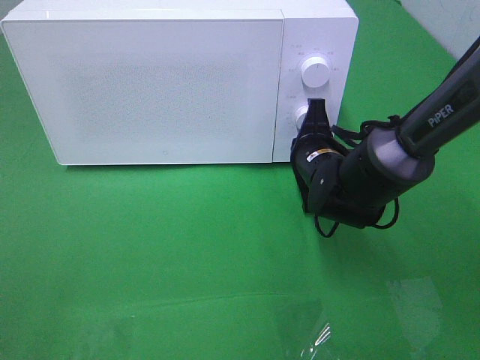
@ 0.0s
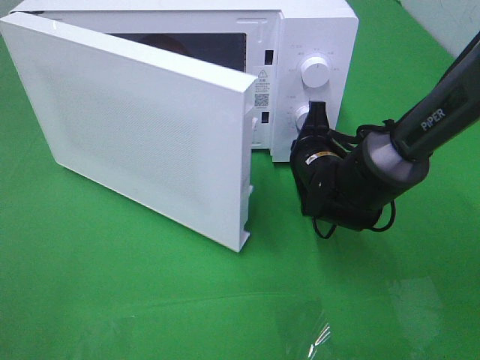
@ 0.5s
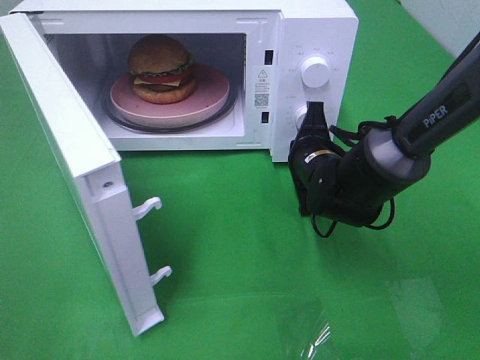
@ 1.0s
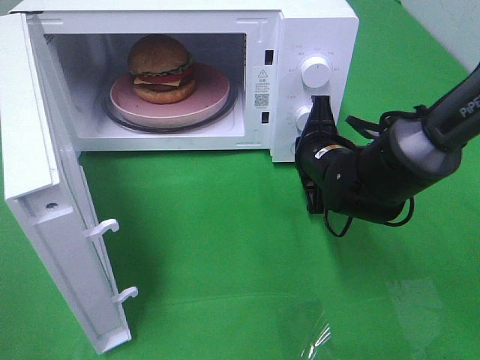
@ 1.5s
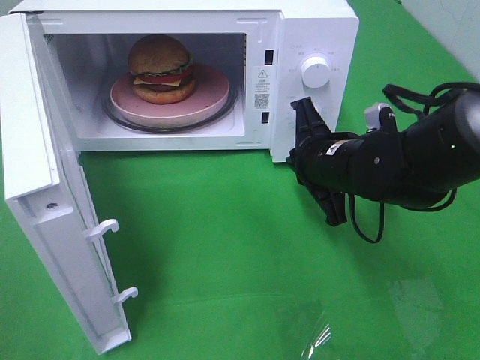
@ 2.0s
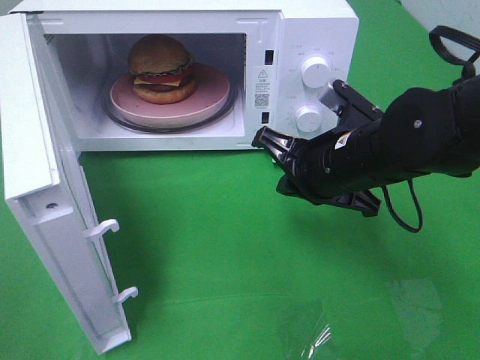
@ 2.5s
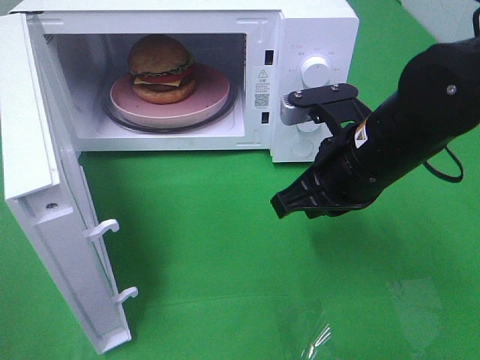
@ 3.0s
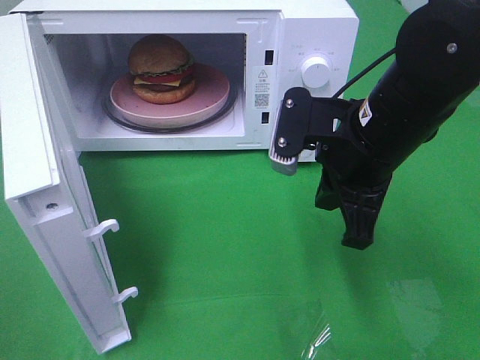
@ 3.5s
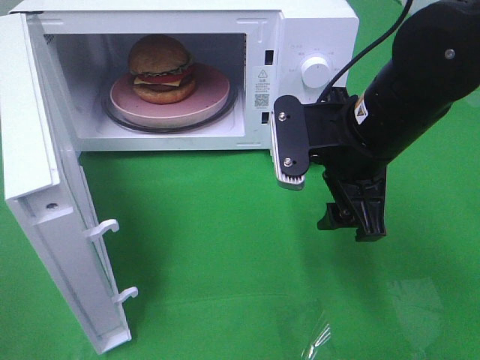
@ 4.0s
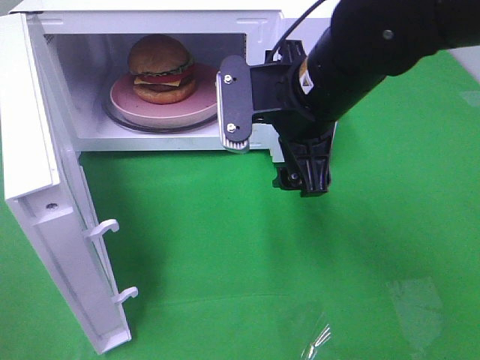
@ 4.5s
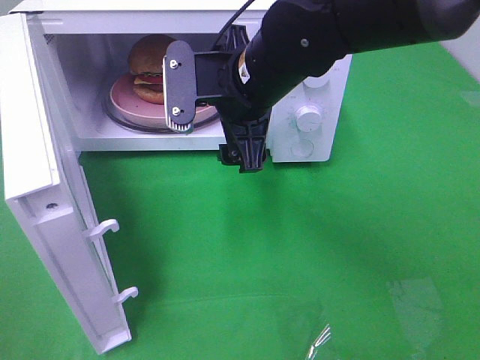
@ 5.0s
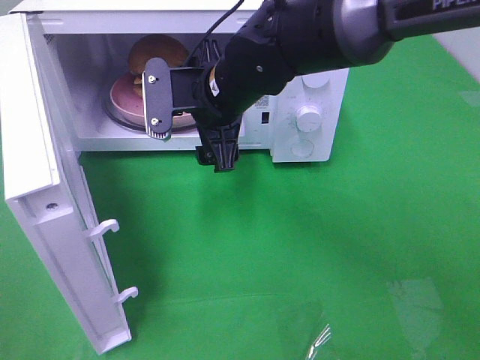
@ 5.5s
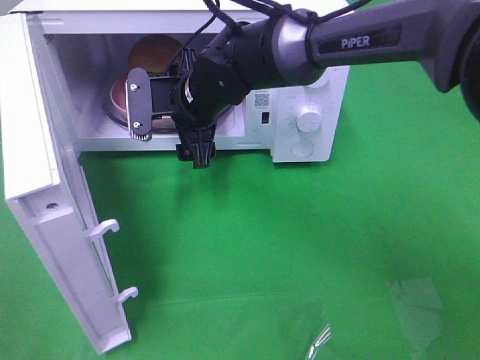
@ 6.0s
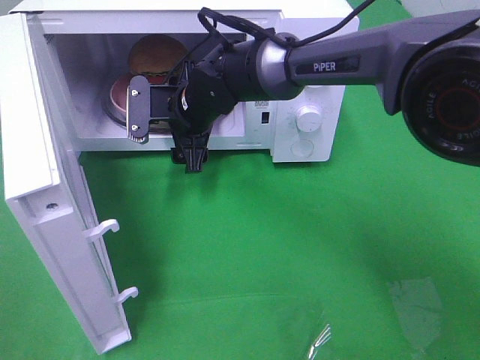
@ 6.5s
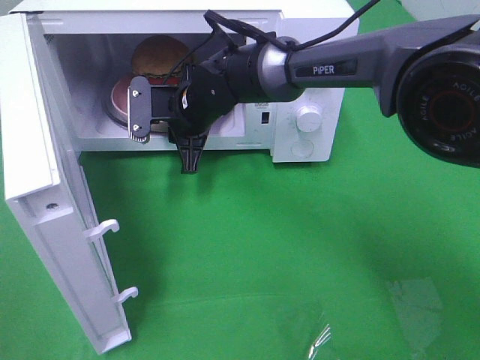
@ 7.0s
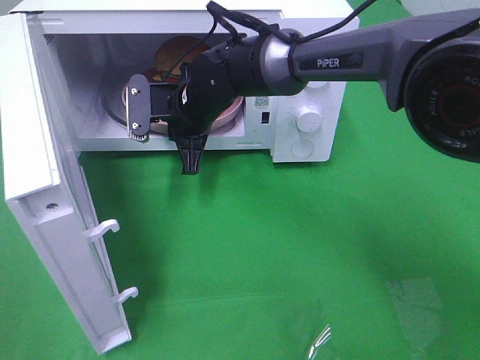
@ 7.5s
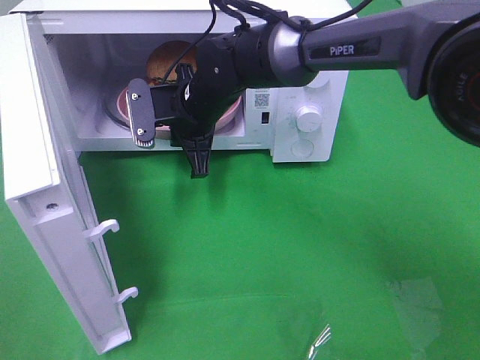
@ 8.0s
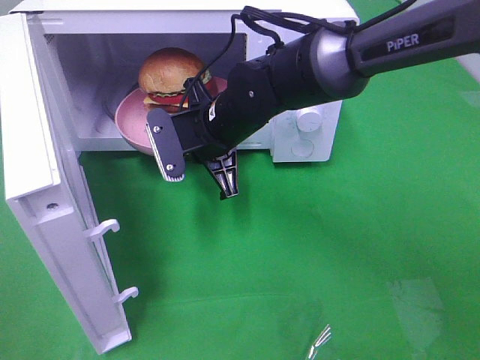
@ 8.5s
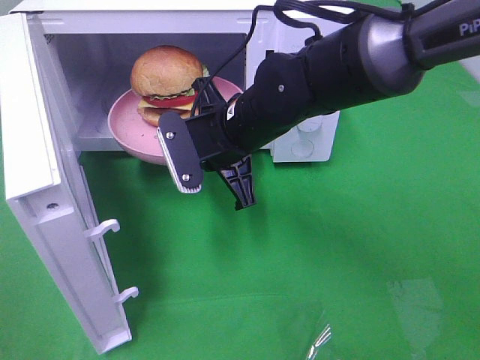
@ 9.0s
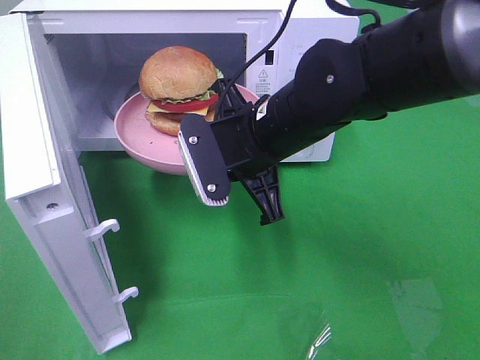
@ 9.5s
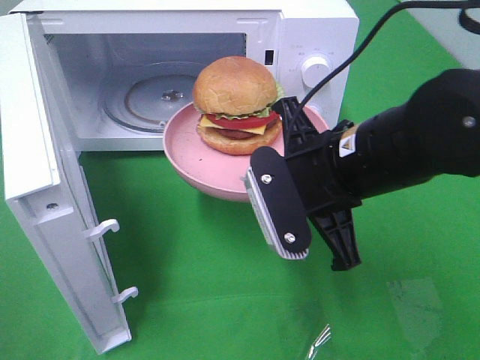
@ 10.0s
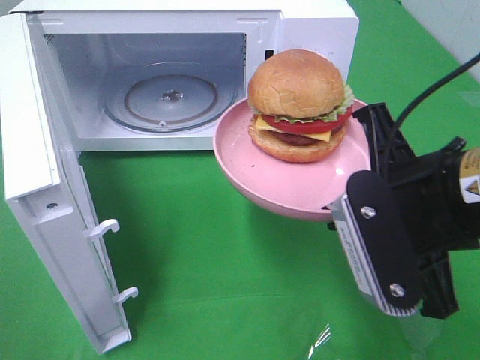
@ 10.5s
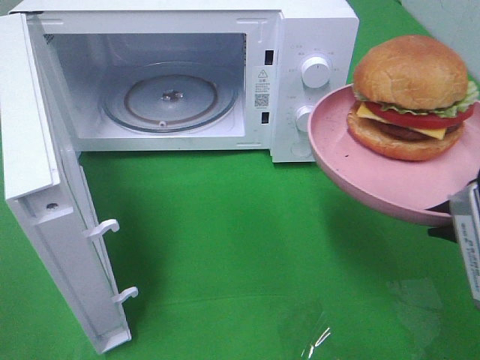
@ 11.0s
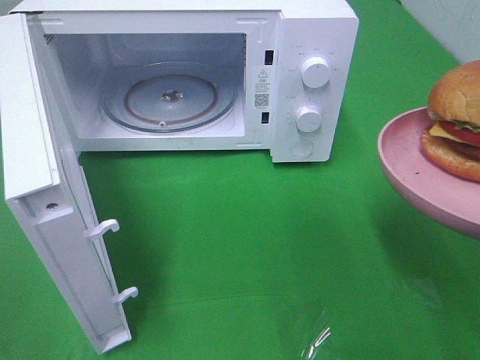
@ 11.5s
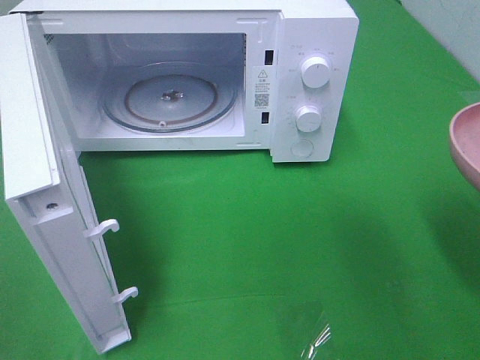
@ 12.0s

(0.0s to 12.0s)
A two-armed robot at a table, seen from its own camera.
Task of the whole recording: Heat the burger.
Step, 2.0s - 7.0s: Right hand: grab the plate with the hamburger.
0.0s - 2.0s: The right gripper moves about 5 cm.
2.0s - 4.0s: The right gripper goes some 10 cm upward, and opens up.
4.0s - 6.0s: The right gripper is displaced to the left and forward by roughly 20 cm.
6.0s - 8.0s: The right gripper closes.
8.0s - 10.0s: The right gripper is displaced backward and to the right by about 20 cm.
10.0s - 12.0s: The right gripper shifts roughly 20 cm to the right and backward.

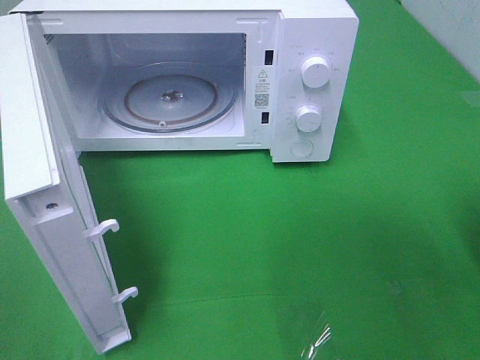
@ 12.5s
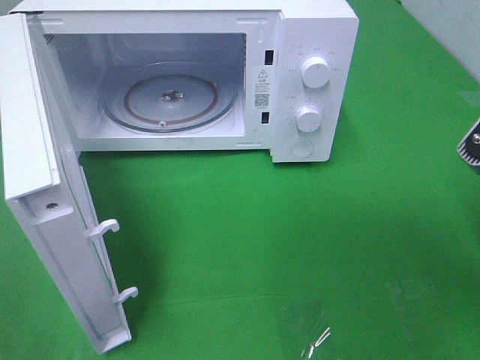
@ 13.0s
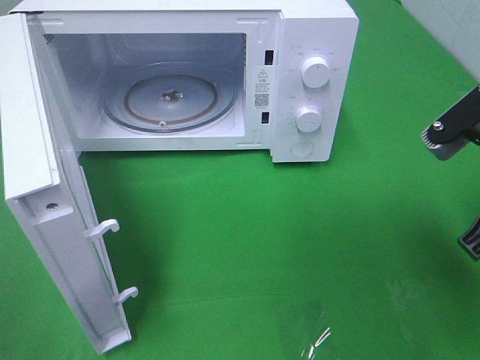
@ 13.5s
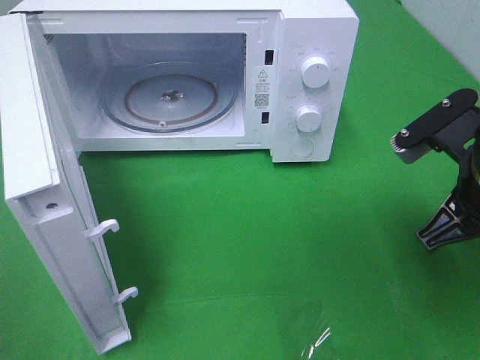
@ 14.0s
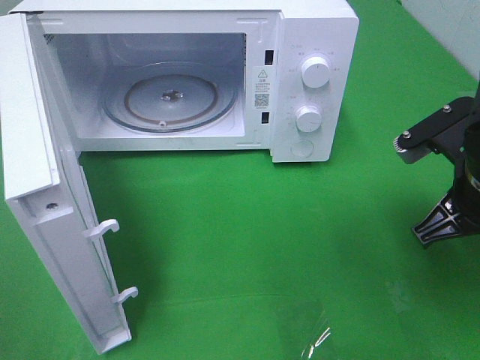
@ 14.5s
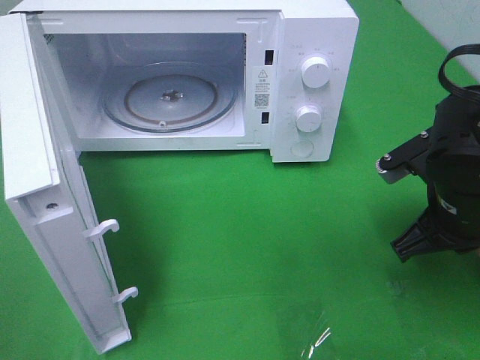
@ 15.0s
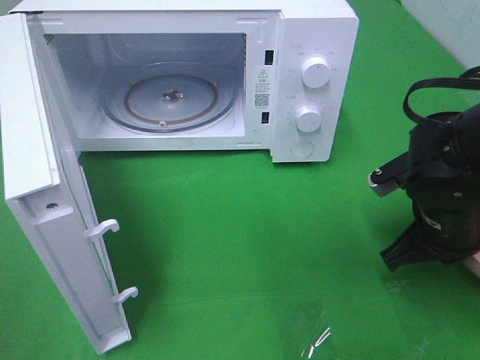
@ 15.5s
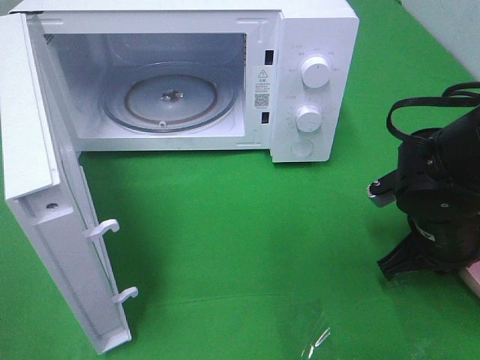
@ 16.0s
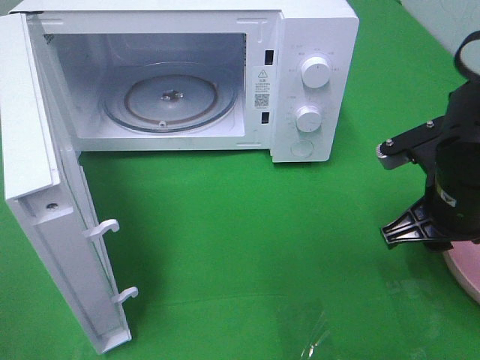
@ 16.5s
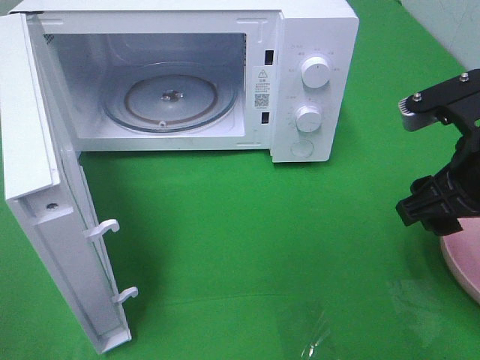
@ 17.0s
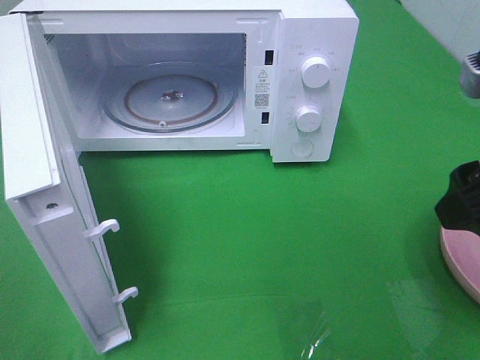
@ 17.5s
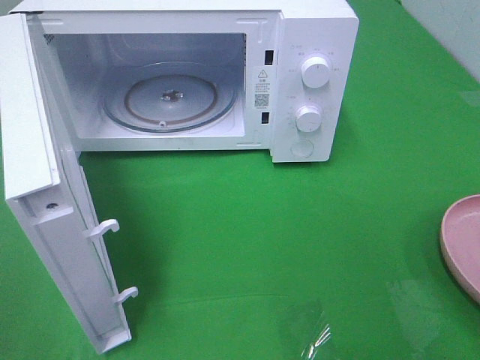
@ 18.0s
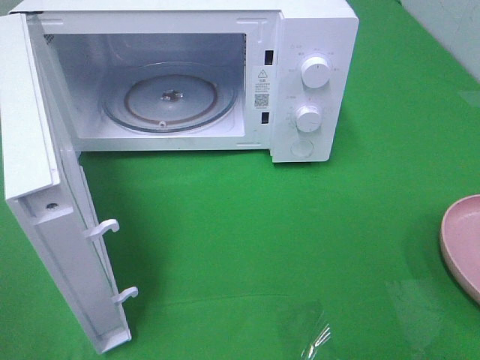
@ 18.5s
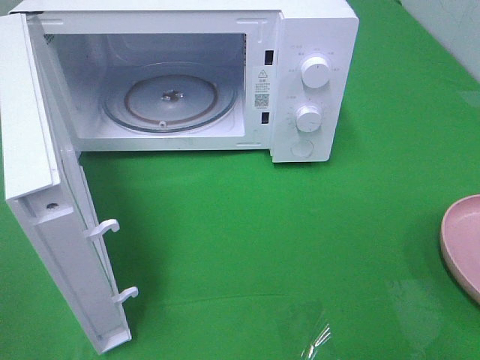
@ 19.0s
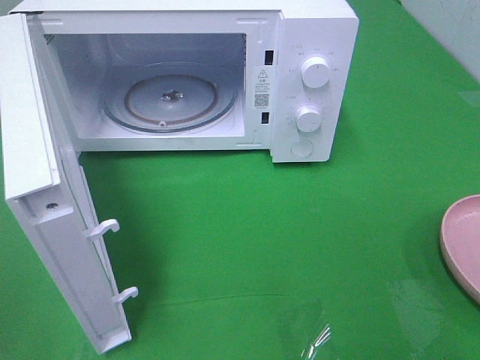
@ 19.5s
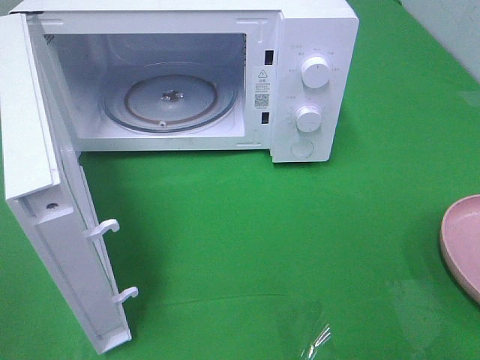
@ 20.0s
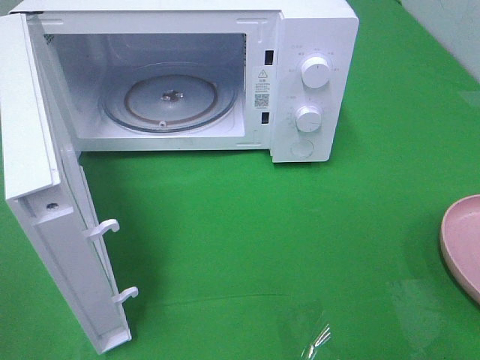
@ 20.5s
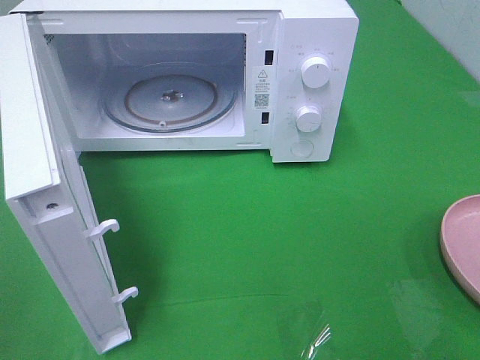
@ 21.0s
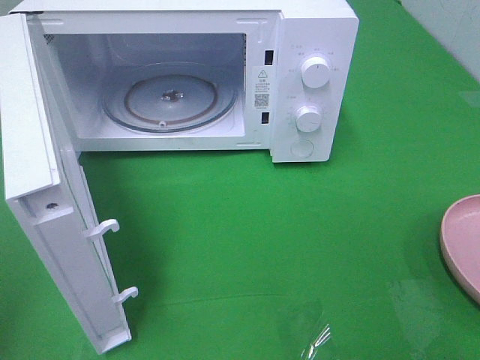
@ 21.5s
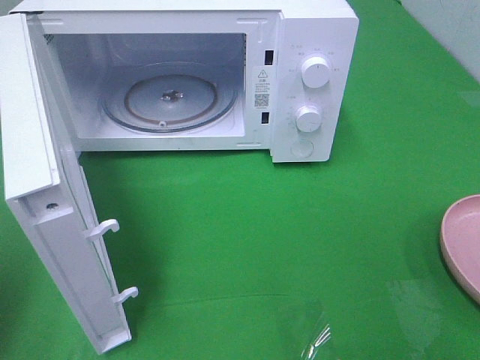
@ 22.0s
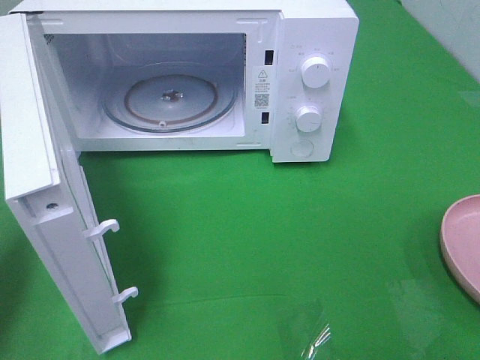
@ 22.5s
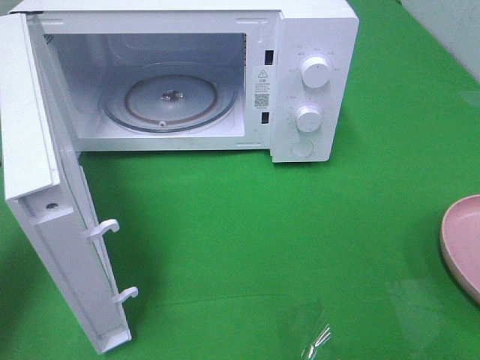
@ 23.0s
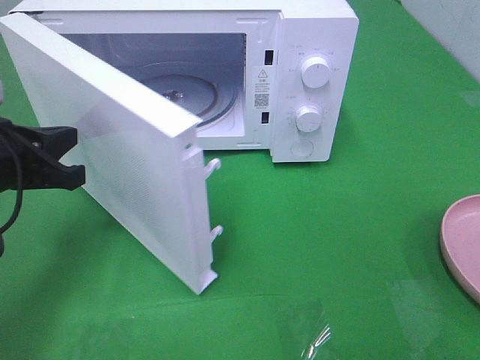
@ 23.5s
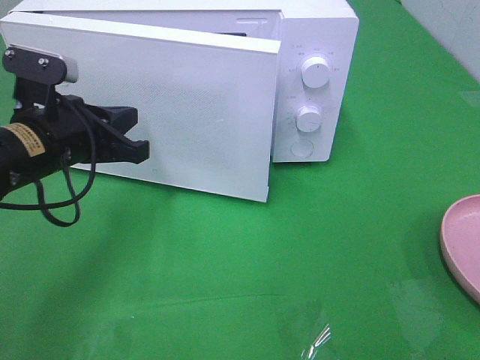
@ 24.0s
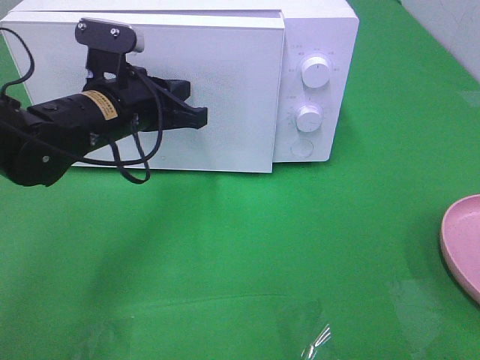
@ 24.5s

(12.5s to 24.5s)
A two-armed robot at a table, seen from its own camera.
Task of the whole recording: Heat the burger.
Step, 12.5s - 16.5s: Right hand: place the plate on the table.
12.5s - 14.5s: The right gripper goes roughly 10 cm forward and downward.
14.5s - 16.5s: The right gripper travels downward and back again, about 10 cm each way, and opens its fingers.
16.5s - 18.5s: The right gripper shifts approximately 25 cm backward, upward and to the right.
20.5s - 22.5s: The left gripper travels forward by roughly 20 cm, and closes.
22.5s - 24.5s: The left gripper is displaced to the right and forward by about 25 cm.

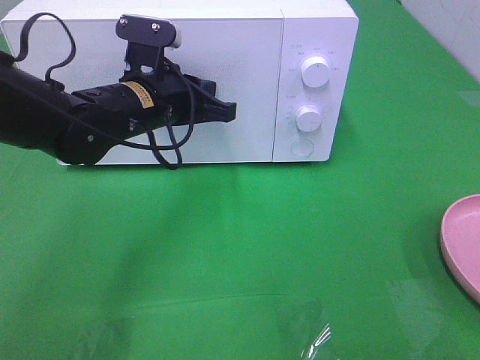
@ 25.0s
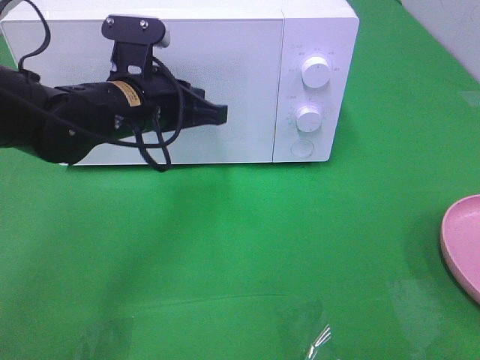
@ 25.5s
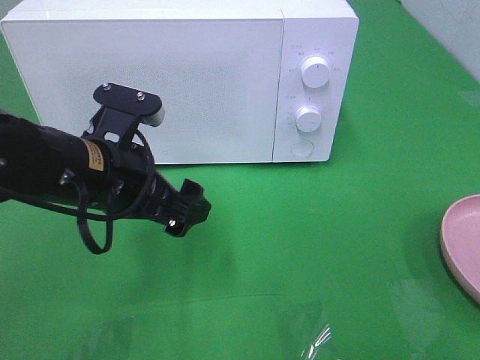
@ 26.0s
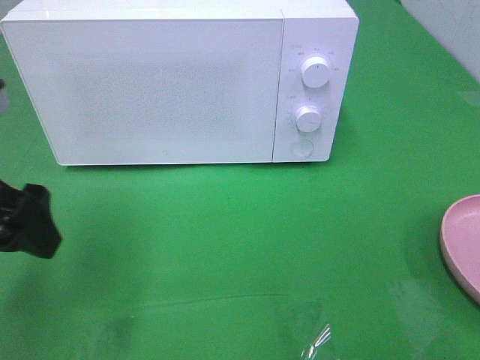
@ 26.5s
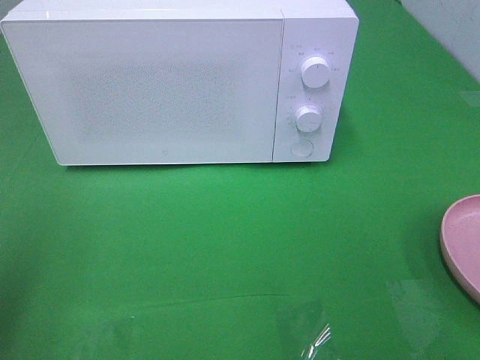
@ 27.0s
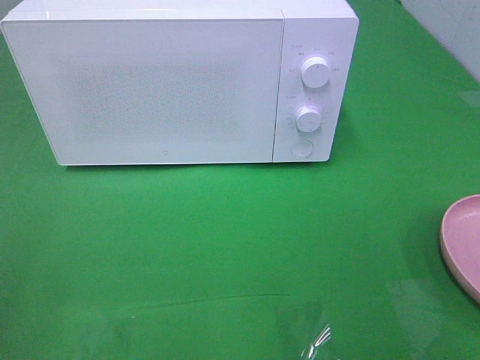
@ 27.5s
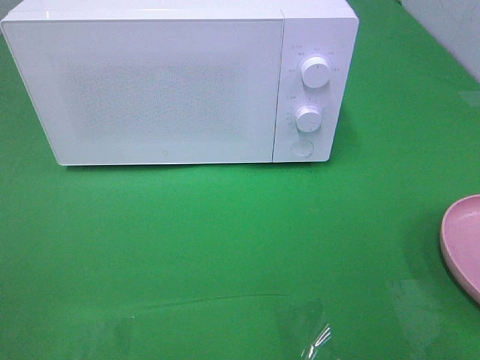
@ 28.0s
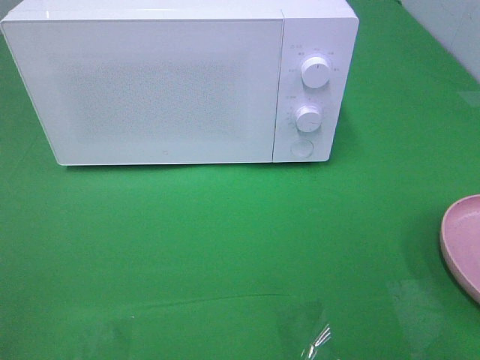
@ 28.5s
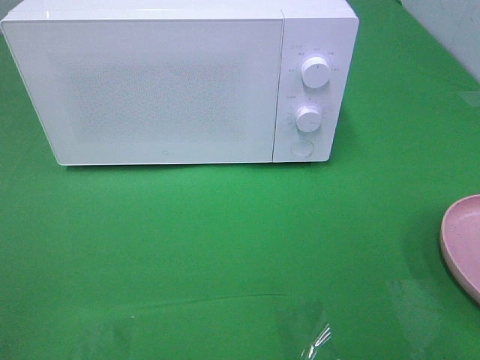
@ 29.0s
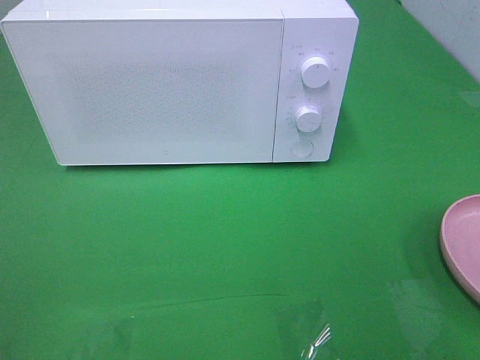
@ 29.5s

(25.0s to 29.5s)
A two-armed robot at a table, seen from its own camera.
Task of the whole recording: Heat the burger.
25.0s - 27.0s: The left gripper goes about 35 cm backward, to the left and upward, and opens.
